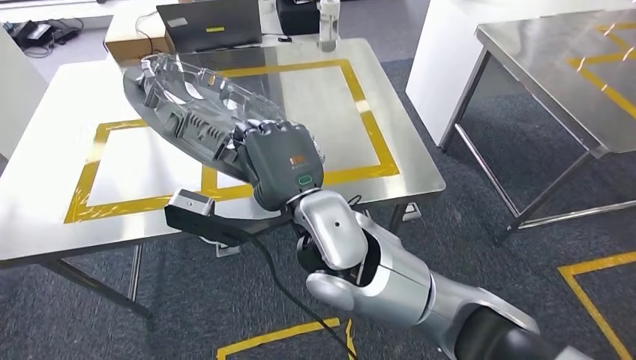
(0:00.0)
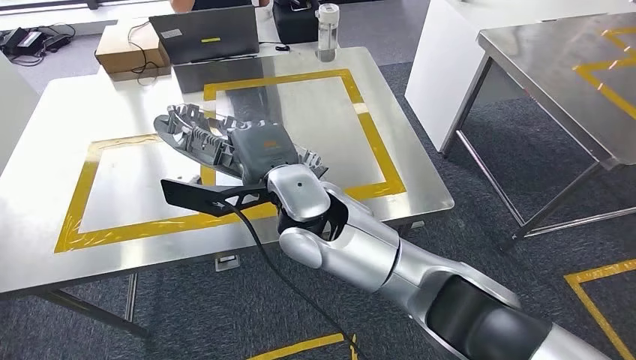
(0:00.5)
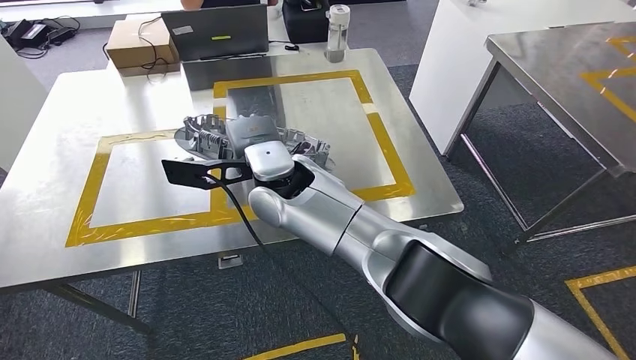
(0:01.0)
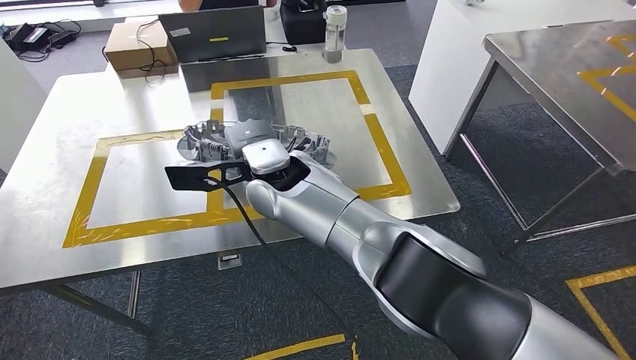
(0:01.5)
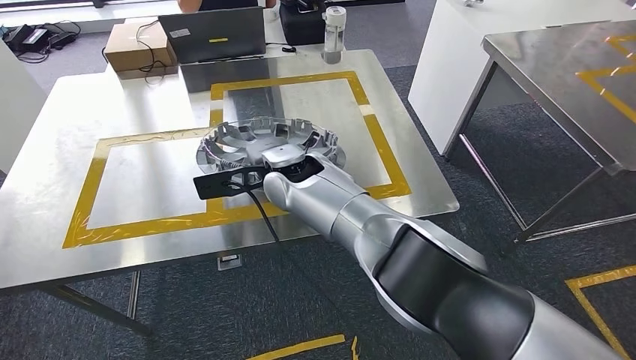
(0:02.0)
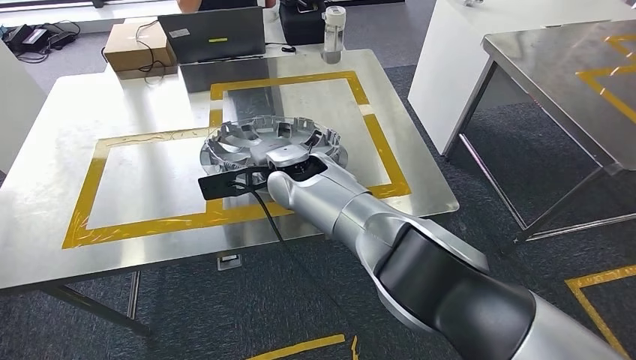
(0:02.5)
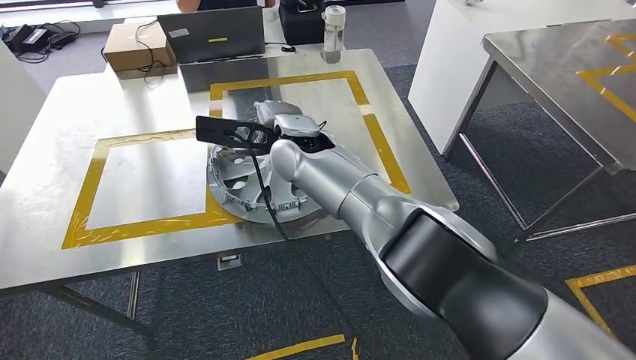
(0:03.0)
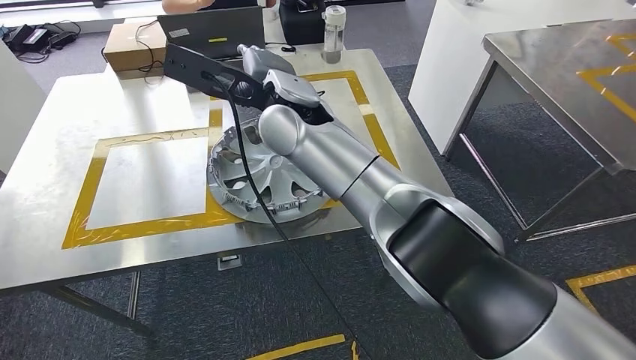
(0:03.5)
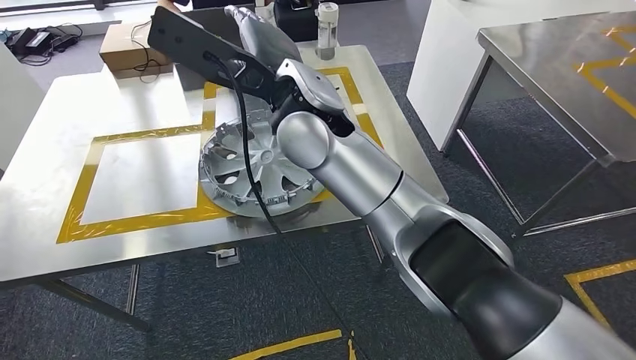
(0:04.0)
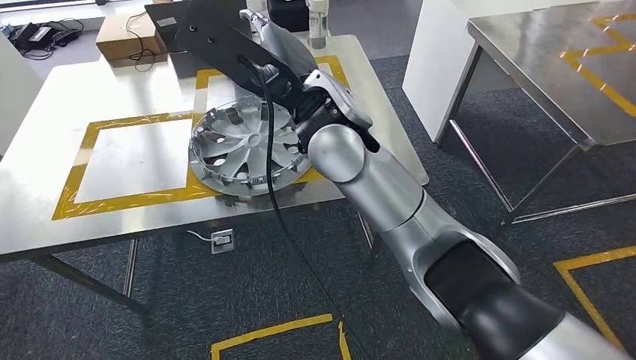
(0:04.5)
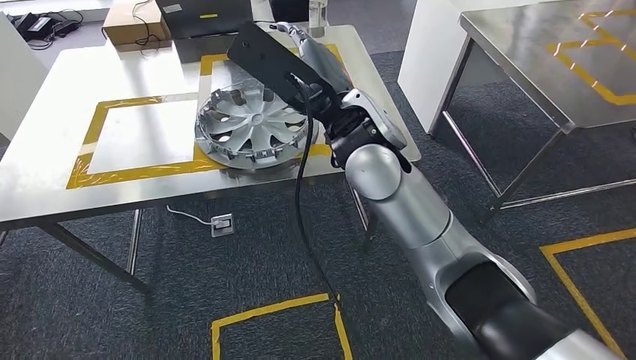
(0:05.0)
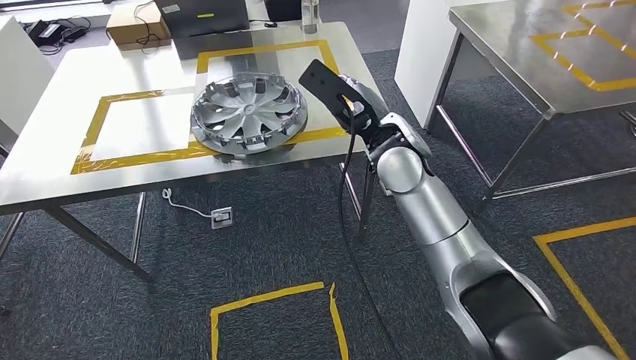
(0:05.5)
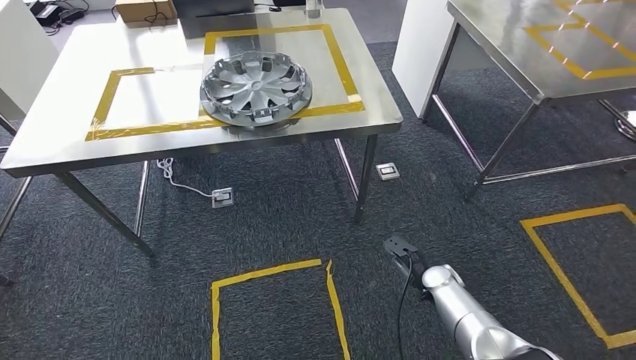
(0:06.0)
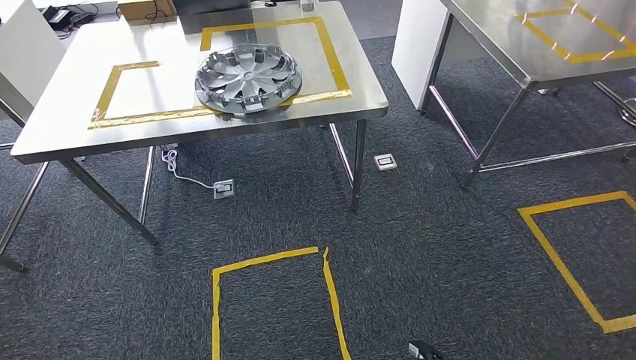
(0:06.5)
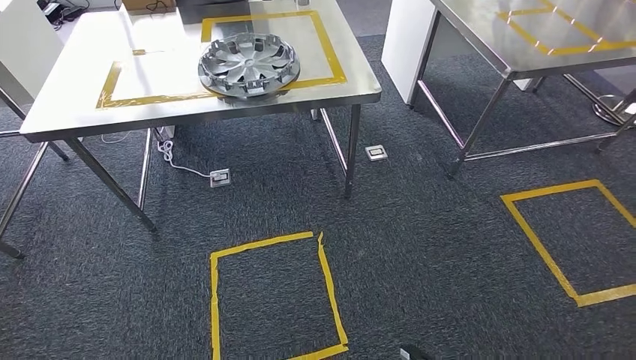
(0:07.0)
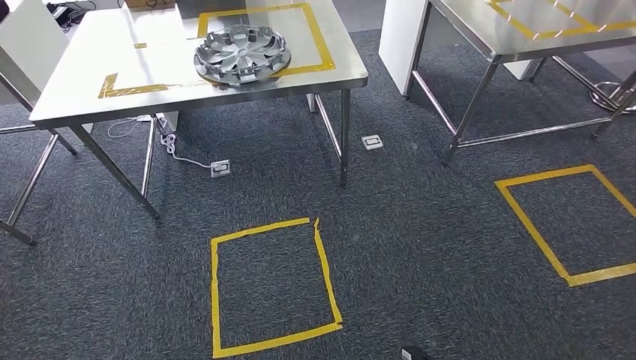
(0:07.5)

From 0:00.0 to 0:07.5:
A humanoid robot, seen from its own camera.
Step, from 0:00.0 to 0:03.5: Insert the small component into the corresponding slot on the workbench.
Step, from 0:04.5 to 0:07.5: Return to the initial position at the workbench.
